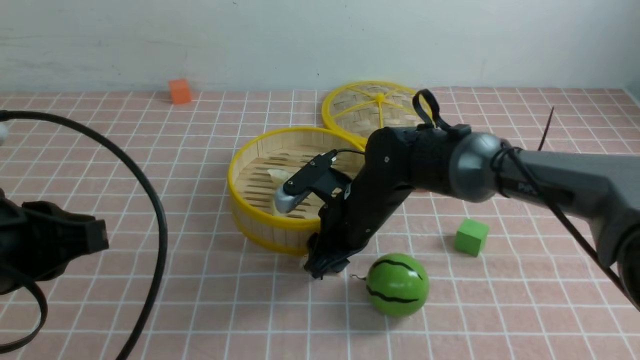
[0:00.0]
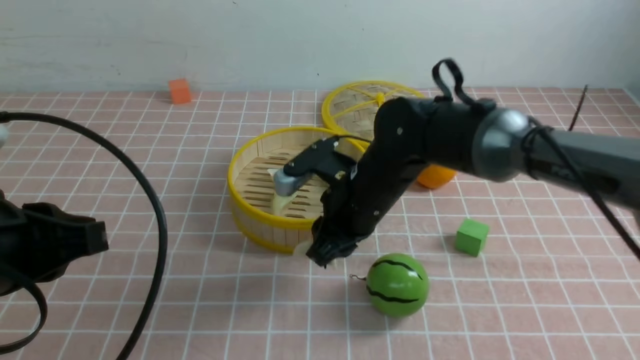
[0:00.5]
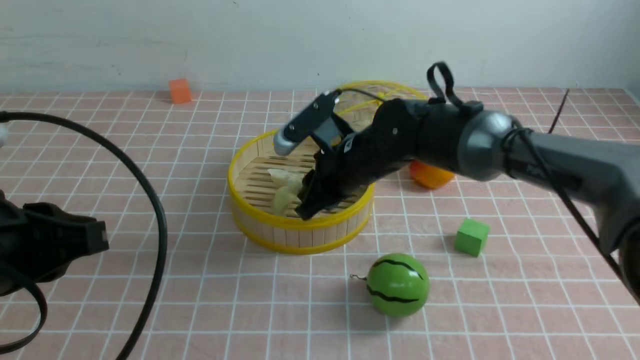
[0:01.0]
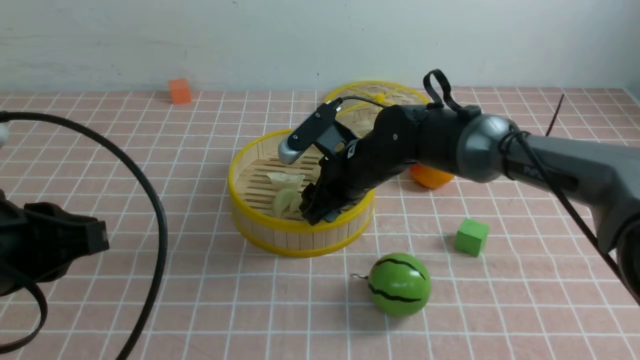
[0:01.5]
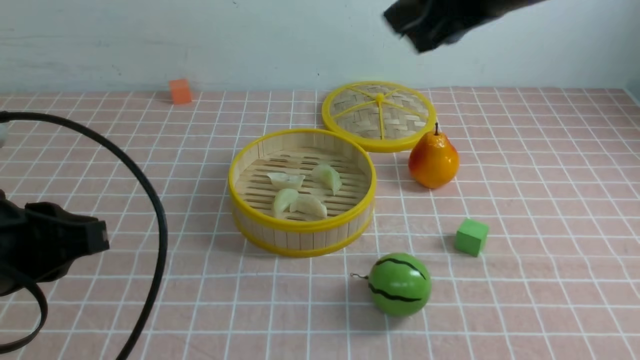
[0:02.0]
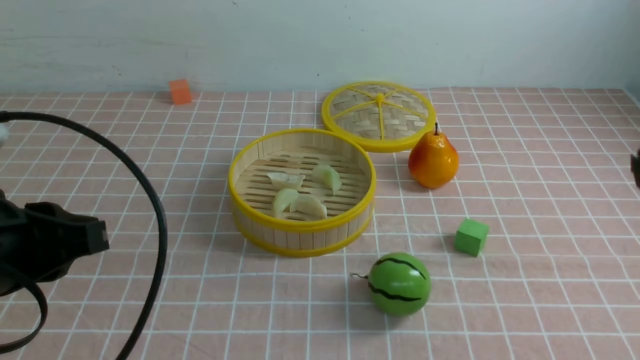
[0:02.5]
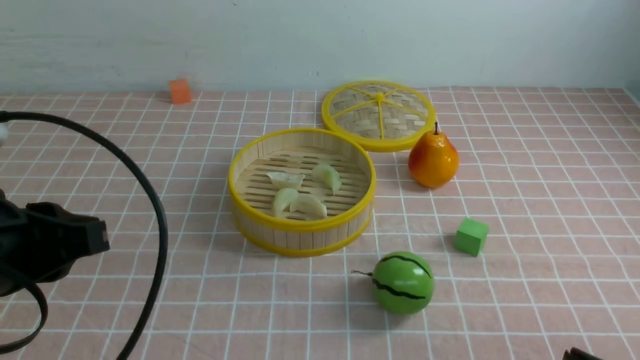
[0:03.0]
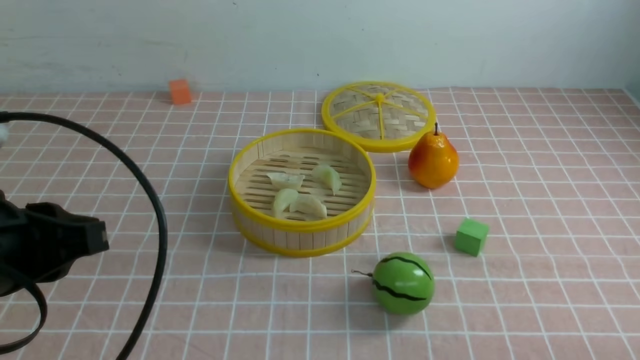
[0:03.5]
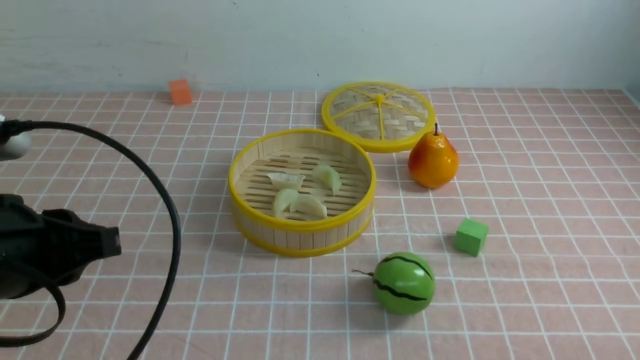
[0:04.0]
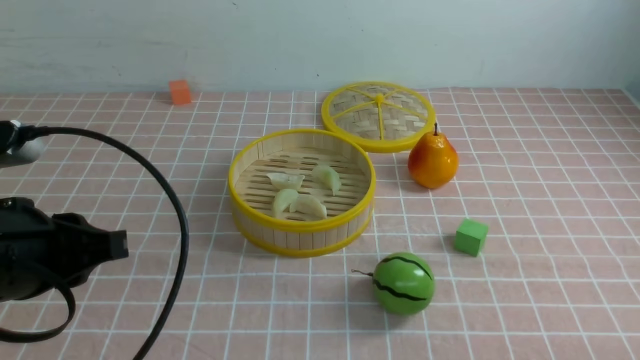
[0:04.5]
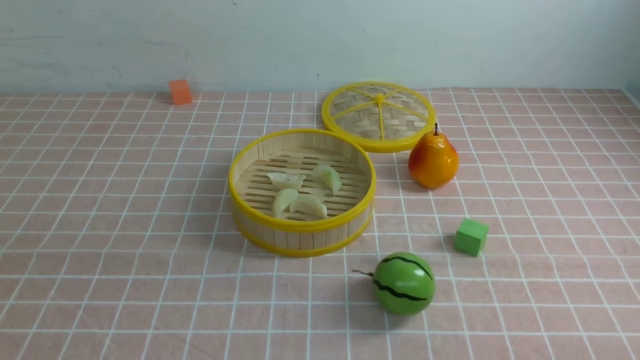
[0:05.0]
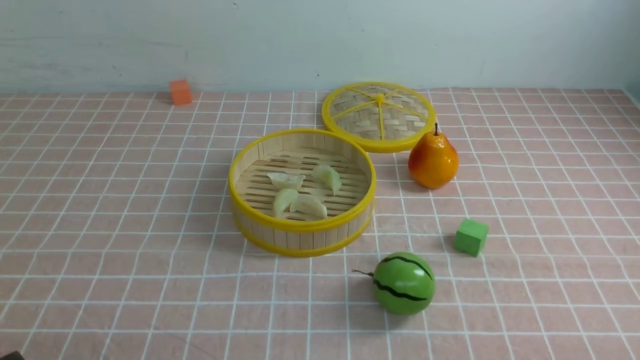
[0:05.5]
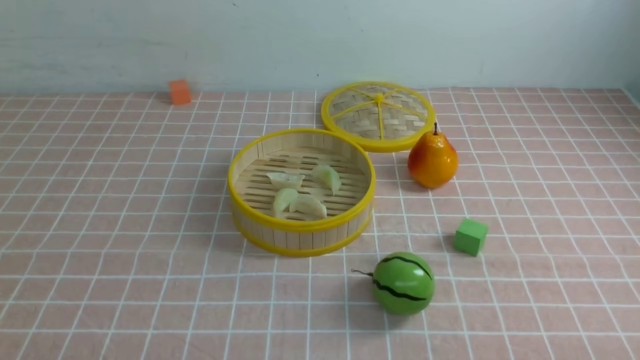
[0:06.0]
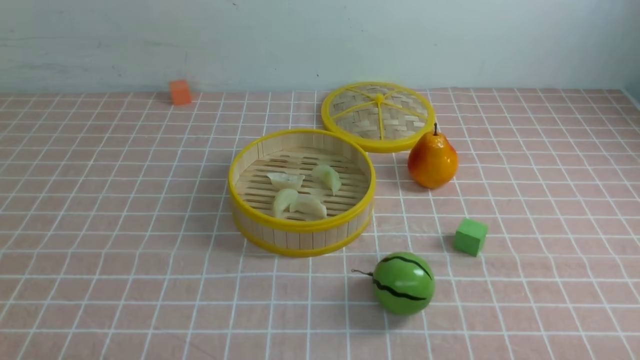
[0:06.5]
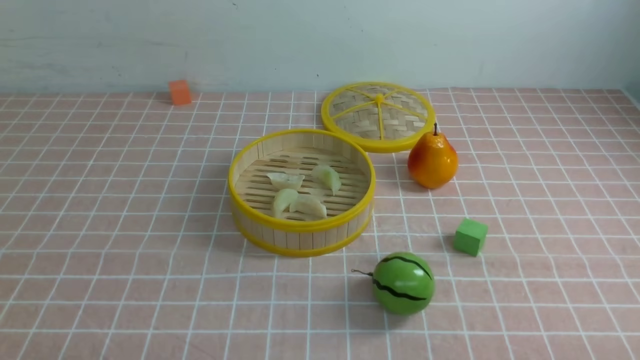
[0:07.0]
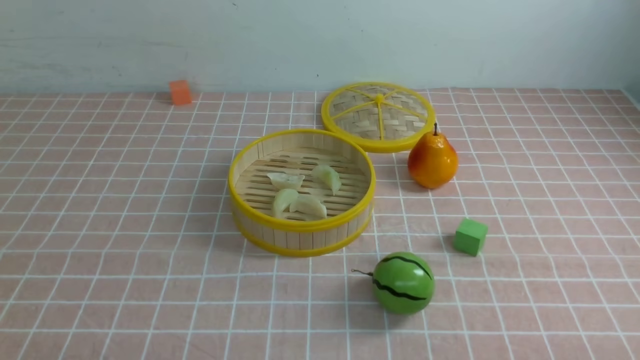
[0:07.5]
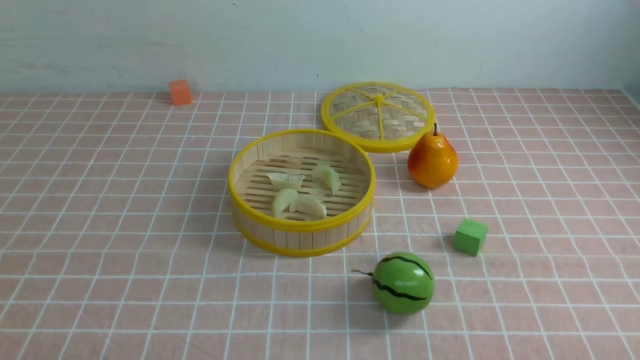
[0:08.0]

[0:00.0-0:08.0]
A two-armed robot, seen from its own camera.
Task of the whole recording: put the dumplings into the steamer on the table with the pink tablecloth.
Step, 0:00.5 to 0:01.5: use the right arm to put the dumpling into the steamer.
0:00.0 to 0:02.0: The right gripper is displaced upward by roughly 25 cm.
0:02.0 to 0:04.0: The right gripper is displaced backward, downward and to the right by approximately 40 cm, and closes.
0:04.0 to 0:06.0: The left gripper is displaced downward and backward by about 20 cm.
